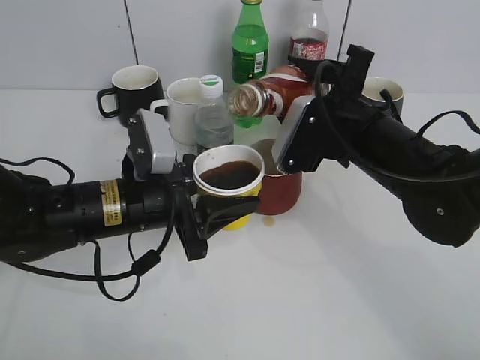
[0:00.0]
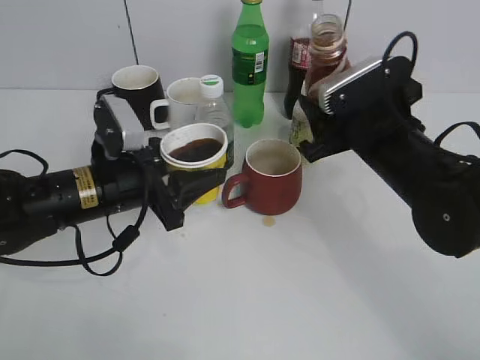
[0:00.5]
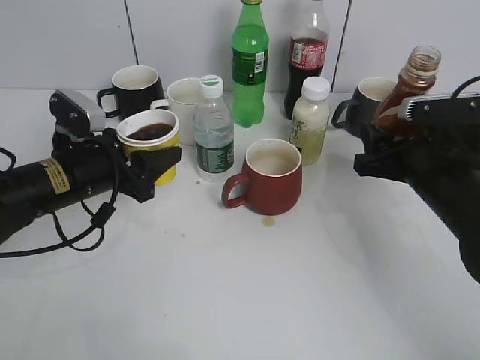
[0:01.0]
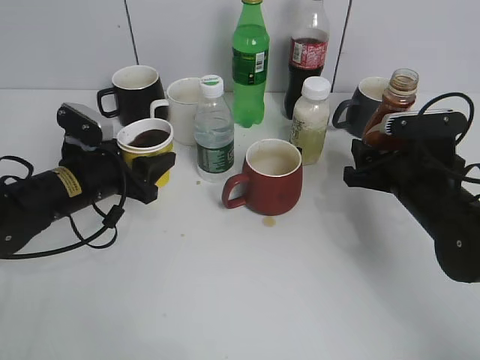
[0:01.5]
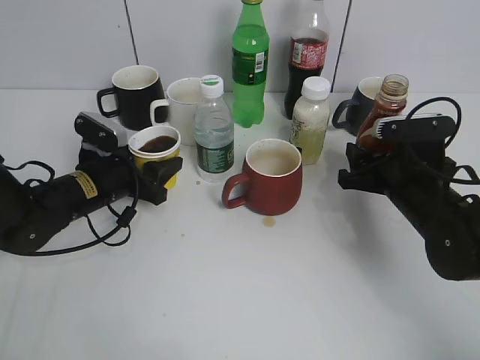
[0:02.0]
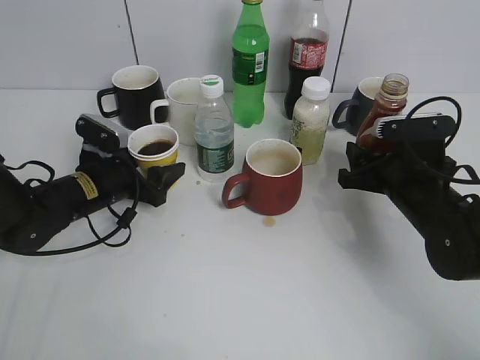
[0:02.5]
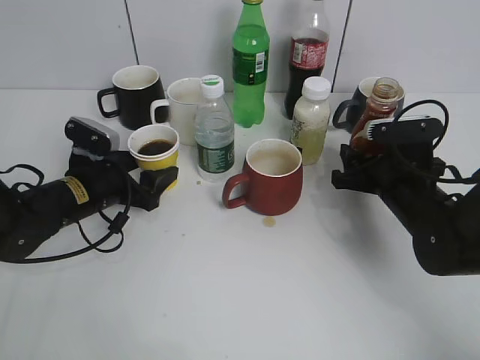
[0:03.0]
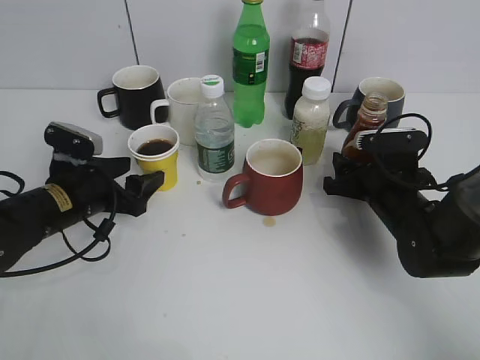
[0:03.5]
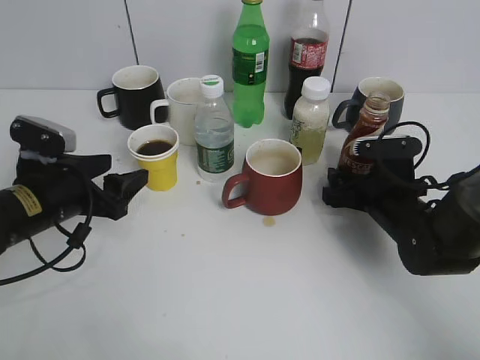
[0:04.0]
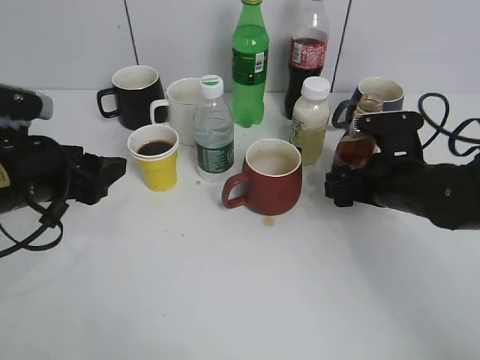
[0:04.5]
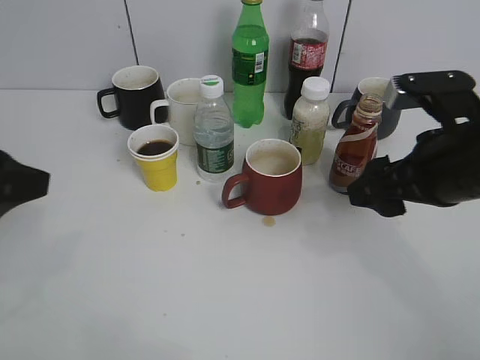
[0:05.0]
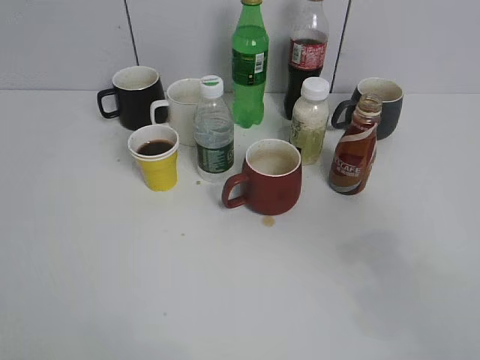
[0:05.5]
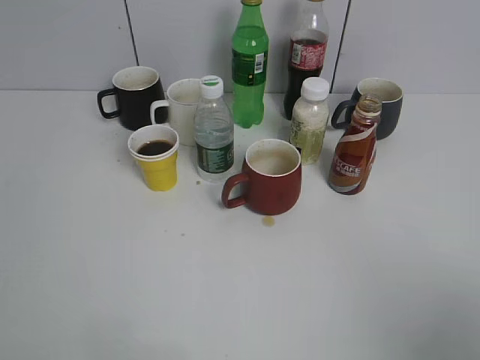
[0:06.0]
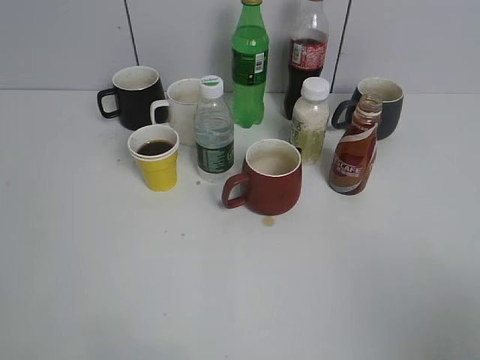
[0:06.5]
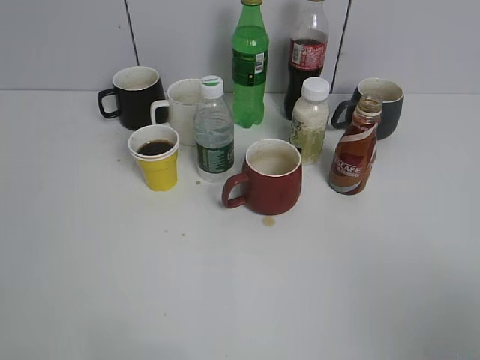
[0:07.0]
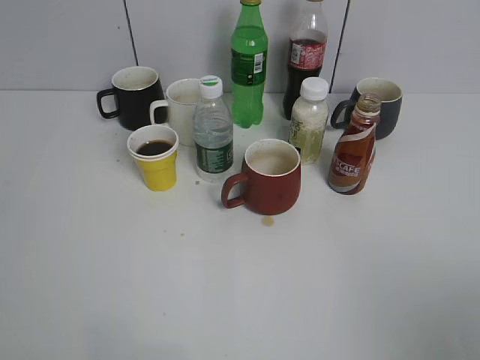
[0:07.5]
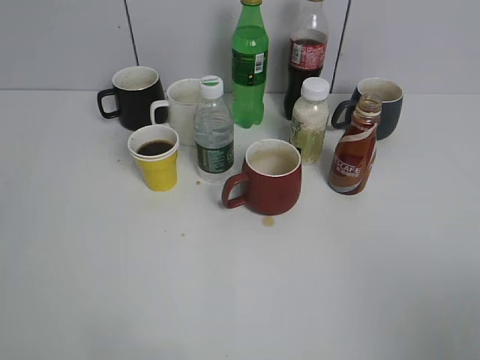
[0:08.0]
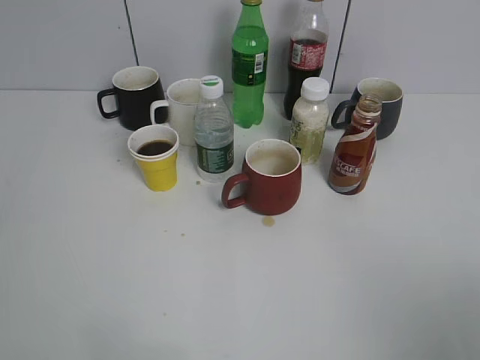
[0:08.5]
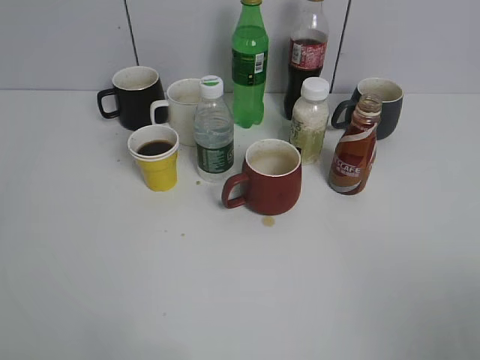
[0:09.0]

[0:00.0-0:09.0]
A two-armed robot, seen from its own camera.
Step, 0:00.5 to 0:04.5: Place the coffee bottle on the table with right gripper.
0:00.0 to 0:02.0: The right gripper shifts some 10 cm to the right and downward; the left gripper is displaced forward, to the left and downward by about 15 cm.
0:02.0 to 0:04.5: The right gripper opens up. The left gripper travels upward and backward by roughly 15 cm, and opens its fingers.
0:04.5 to 0:07.0: Both grippers move backward and upward, about 30 cm.

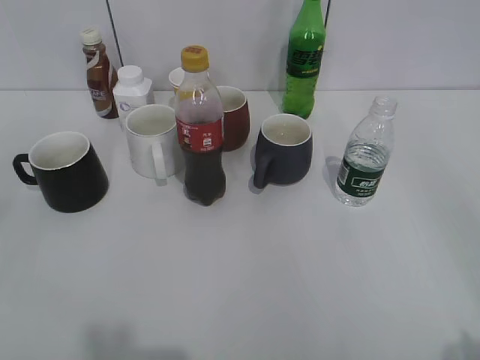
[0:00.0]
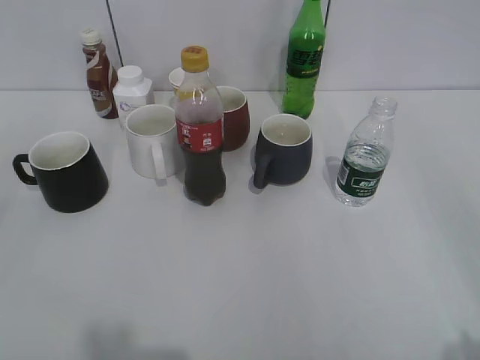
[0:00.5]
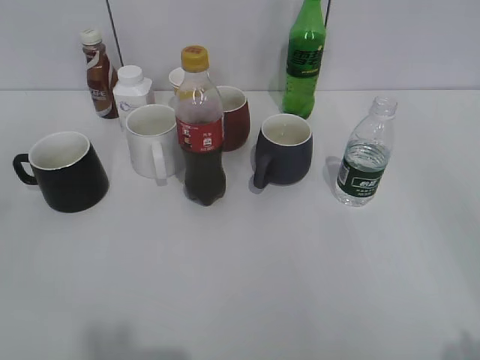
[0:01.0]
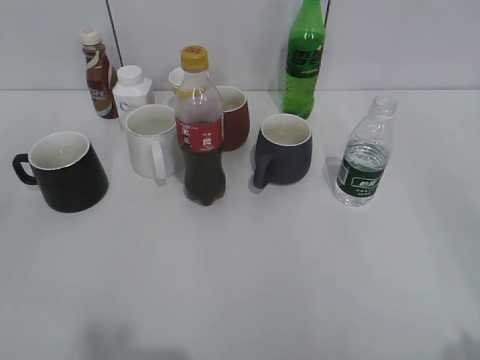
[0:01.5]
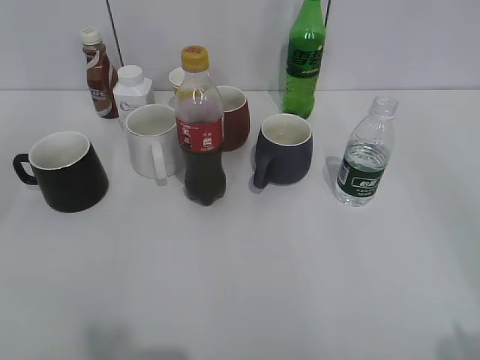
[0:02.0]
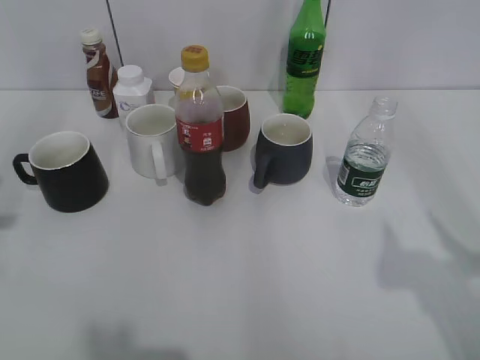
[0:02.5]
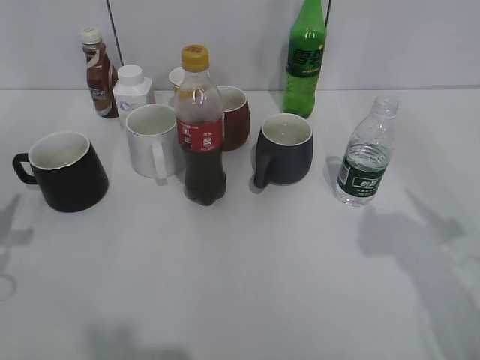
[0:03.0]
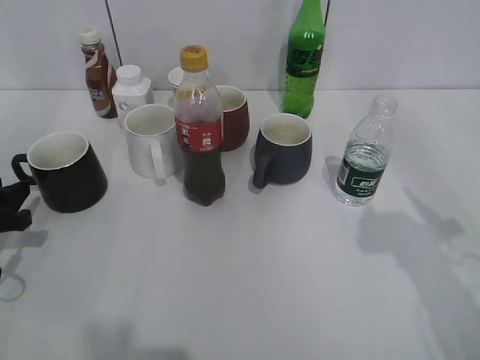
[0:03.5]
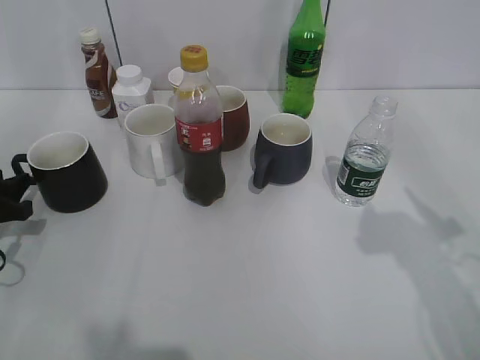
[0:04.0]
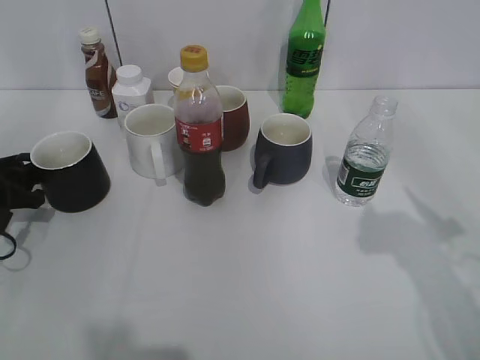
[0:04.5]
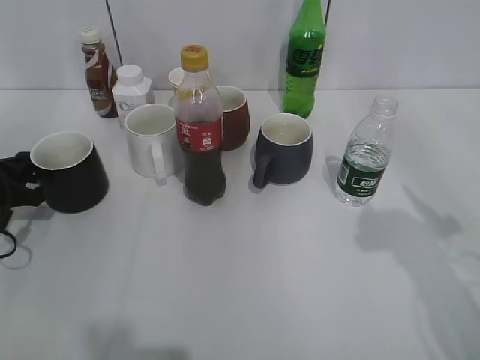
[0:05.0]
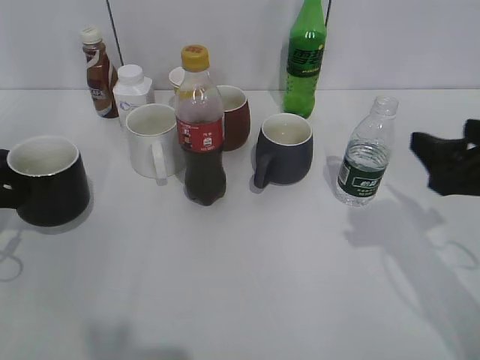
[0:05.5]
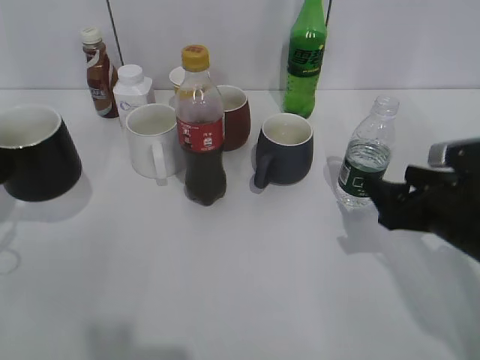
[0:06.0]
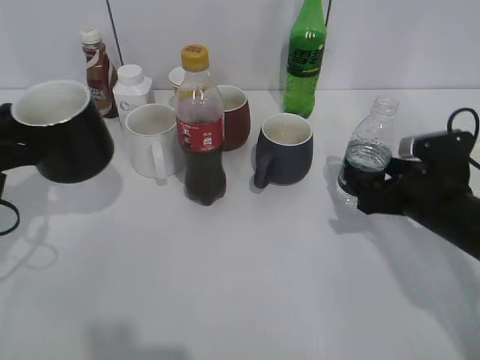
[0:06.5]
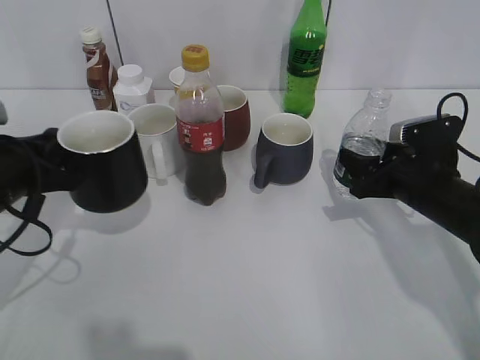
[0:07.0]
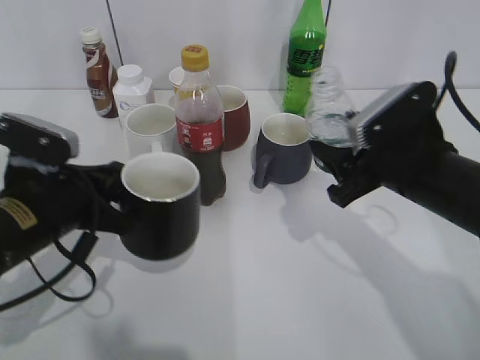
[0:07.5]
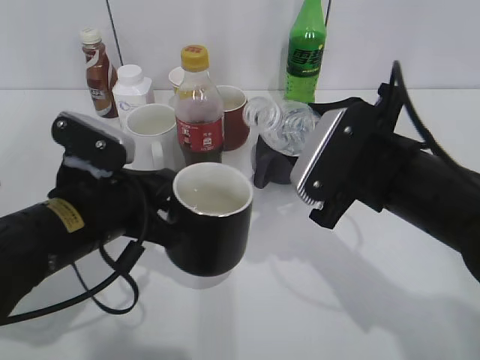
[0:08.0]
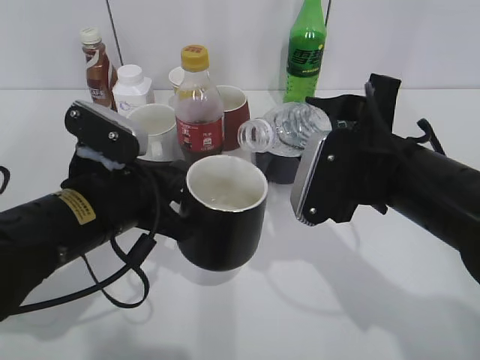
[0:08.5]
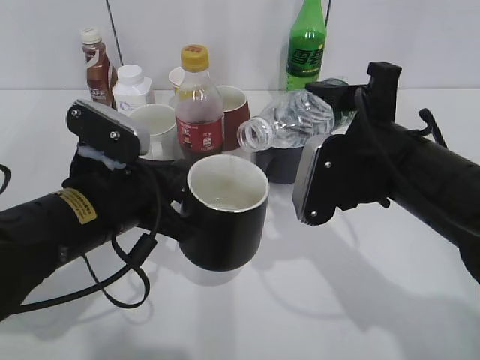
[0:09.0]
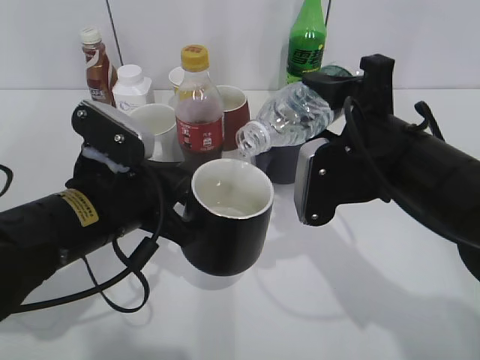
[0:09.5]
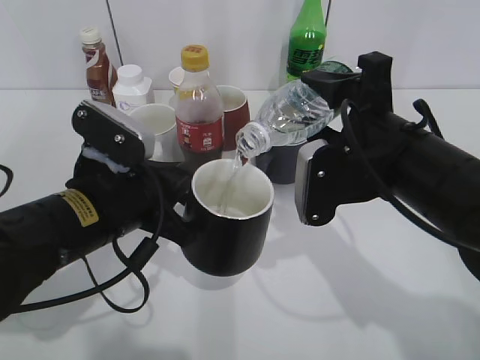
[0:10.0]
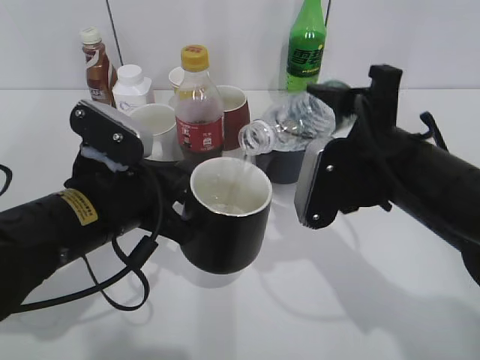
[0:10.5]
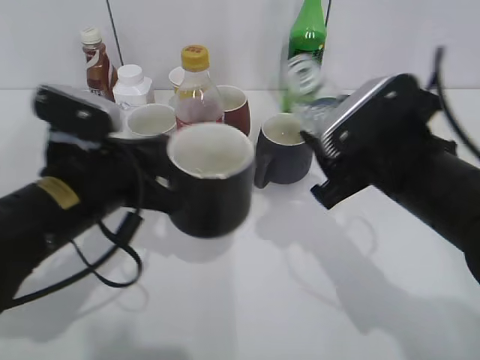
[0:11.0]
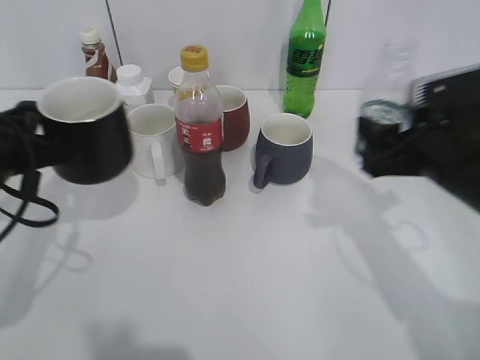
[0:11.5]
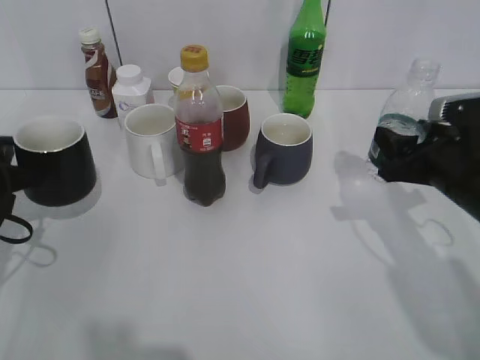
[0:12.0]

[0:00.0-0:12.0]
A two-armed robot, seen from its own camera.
Step, 0:02.0 to 0:04.5: Grasp the black cup with left gripper.
Step, 0:05.0 to 0:06.0: Lift the black cup with left gripper.
Step, 0:07.0 to 0:10.5: Pour the water from bottle to cup with right gripper.
0:02.0 to 0:04.0: The left gripper is displaced forward and downward by about 35 cm.
0:04.0 to 0:06.0: The right gripper heads downward and forward, covering some 20 cm. Meanwhile the left gripper goes about 5 cm upward, and closes.
0:06.0 to 0:08.0: The right gripper moves to the left and upward, roughly 10 cm, and closes its fingers. Meanwhile the left gripper shifts roughly 20 cm to the right.
0:10.0 to 0:12.0: The left gripper travels to the left by about 15 cm. Meanwhile the right gripper goes some 10 cm to the right and downward.

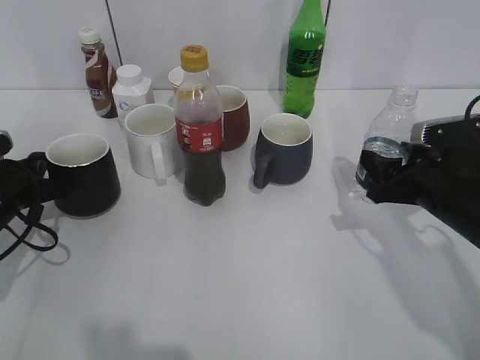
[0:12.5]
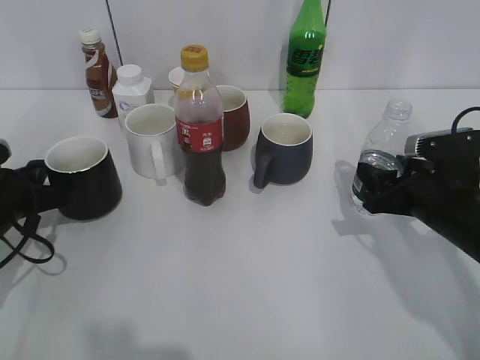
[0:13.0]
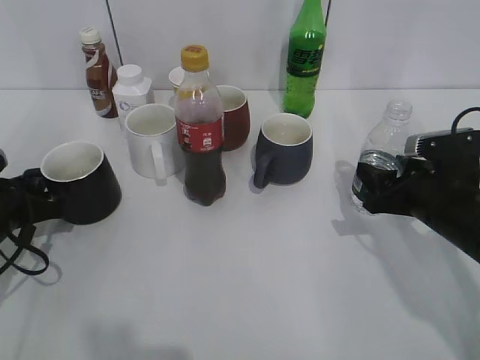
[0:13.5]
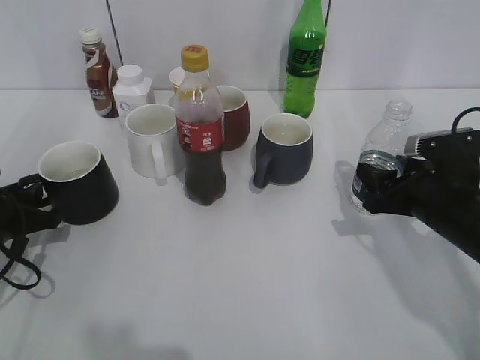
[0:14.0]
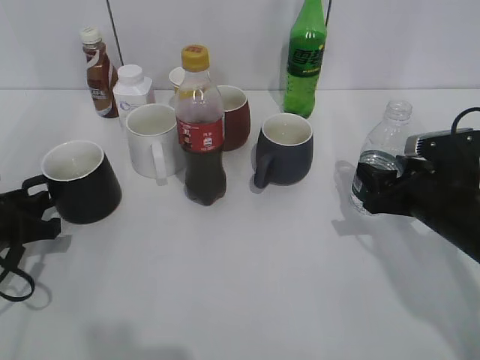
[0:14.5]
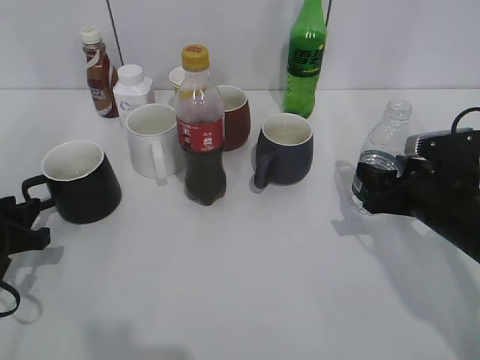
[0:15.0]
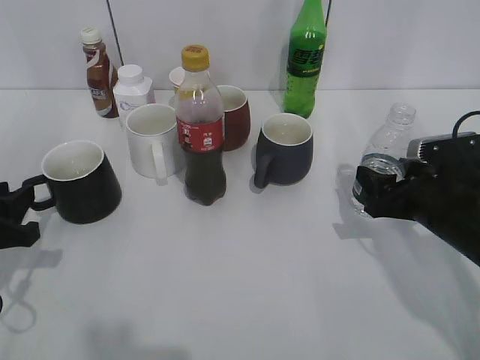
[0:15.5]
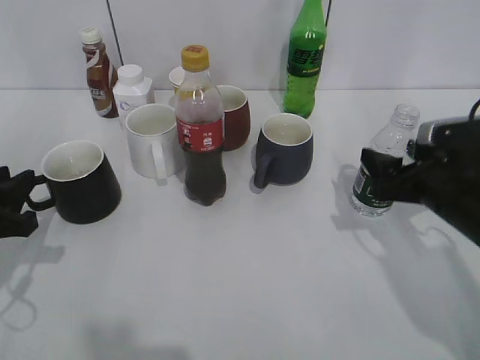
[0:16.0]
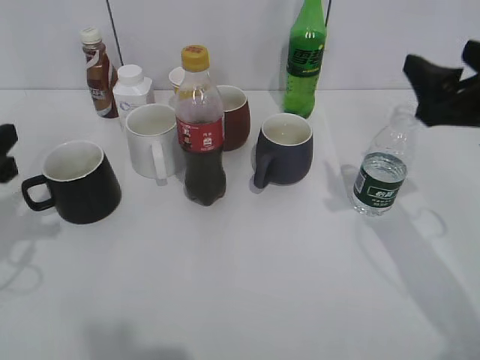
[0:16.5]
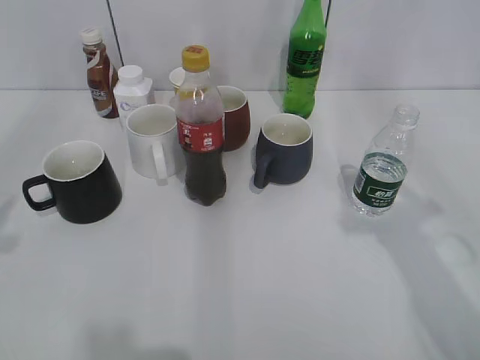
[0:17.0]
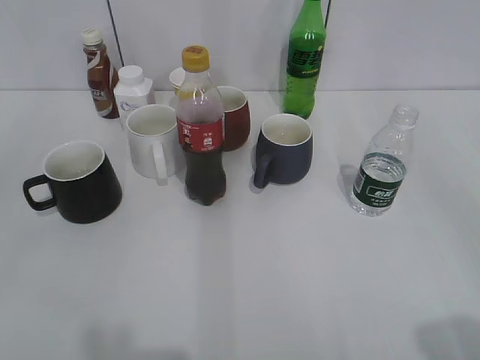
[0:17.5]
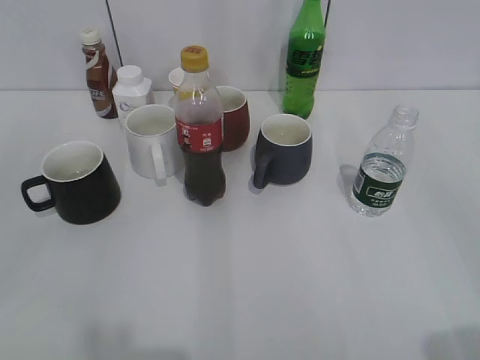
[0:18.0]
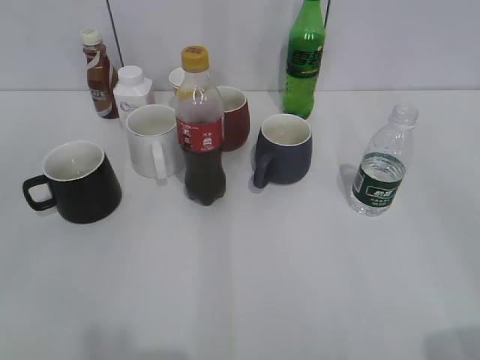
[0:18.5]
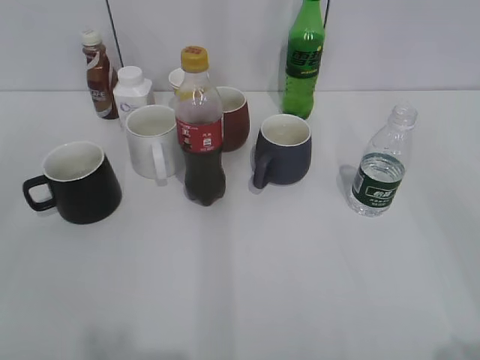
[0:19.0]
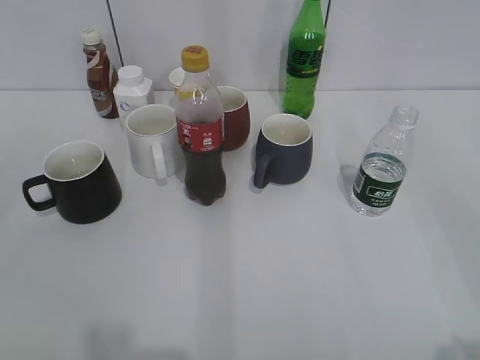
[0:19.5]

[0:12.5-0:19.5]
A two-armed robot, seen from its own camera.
Step, 0:12.5 to 0:16.0: Place the water bottle on the table with right gripper.
0:12.5 to 0:14.5: The left gripper opens.
0:14.5 to 0:16.0: The right gripper opens up; the left gripper shifts roughly 5 cm upward.
0:16.0 to 0:17.5: Both grippers travel together backward and upward, approximately 30 cm.
